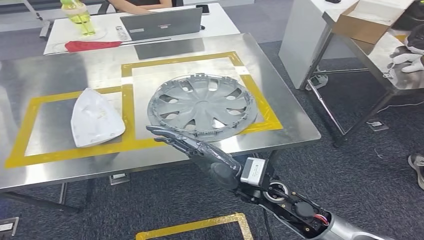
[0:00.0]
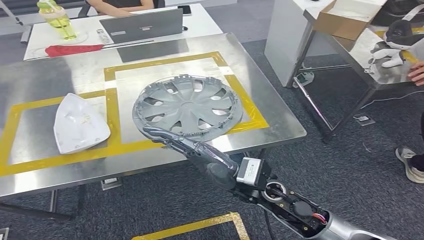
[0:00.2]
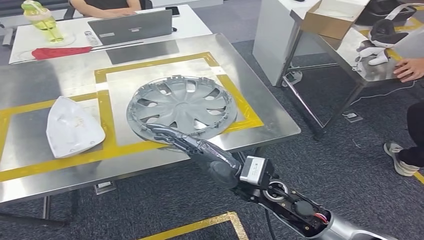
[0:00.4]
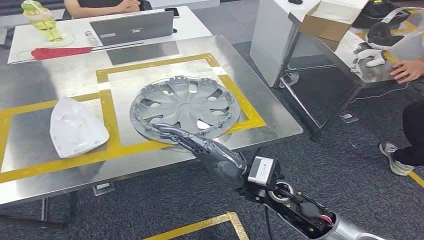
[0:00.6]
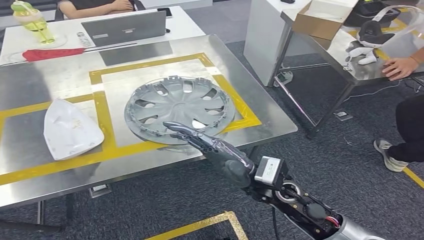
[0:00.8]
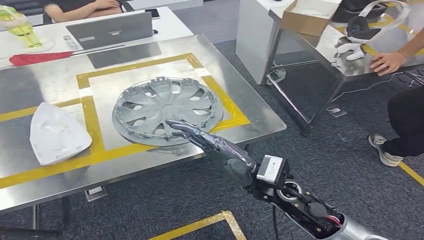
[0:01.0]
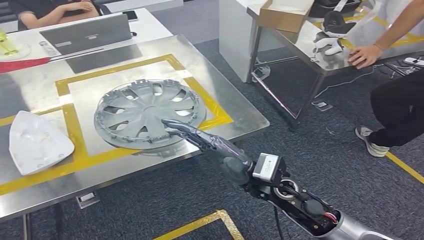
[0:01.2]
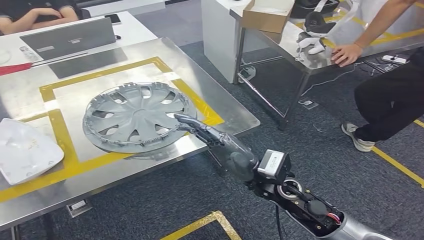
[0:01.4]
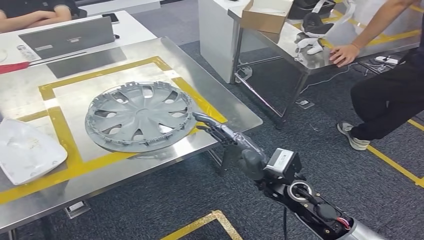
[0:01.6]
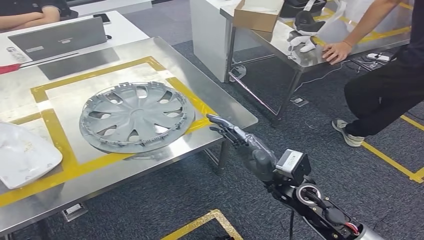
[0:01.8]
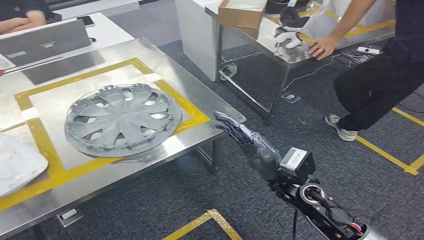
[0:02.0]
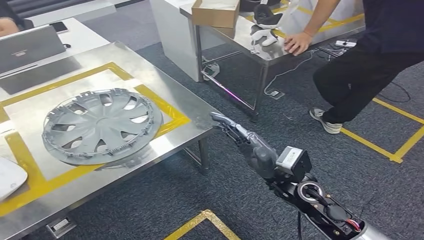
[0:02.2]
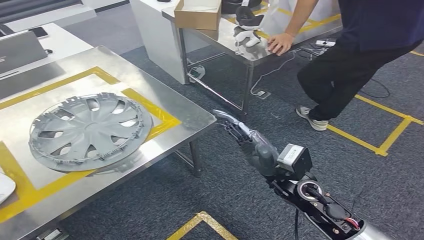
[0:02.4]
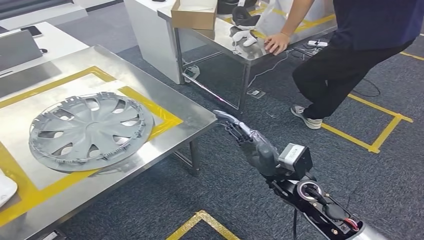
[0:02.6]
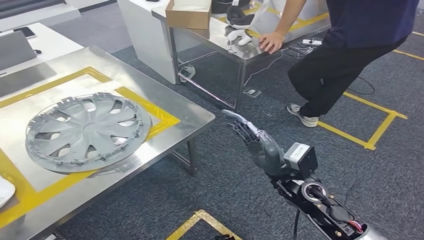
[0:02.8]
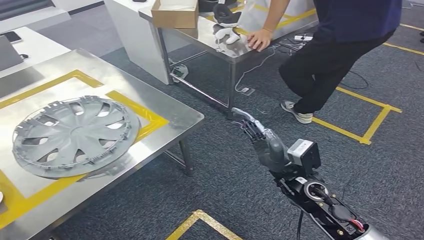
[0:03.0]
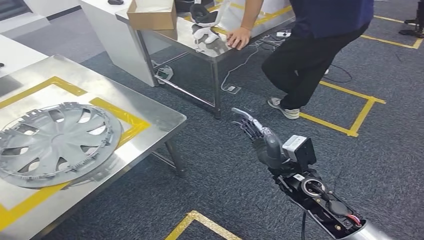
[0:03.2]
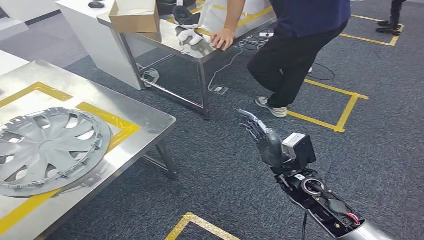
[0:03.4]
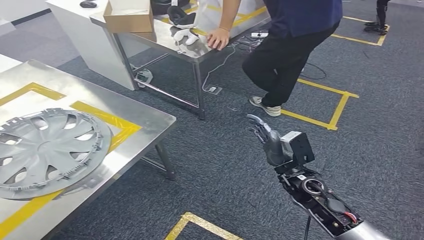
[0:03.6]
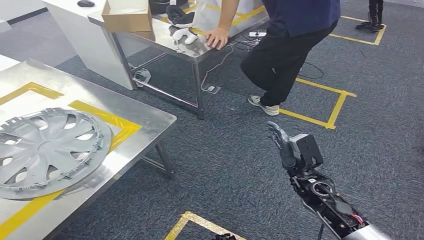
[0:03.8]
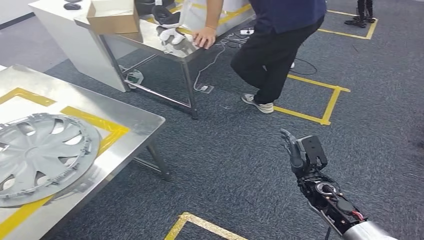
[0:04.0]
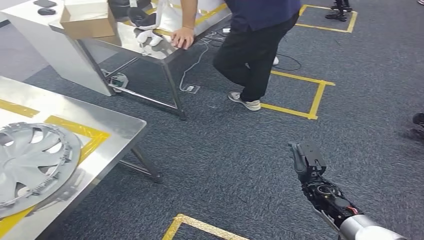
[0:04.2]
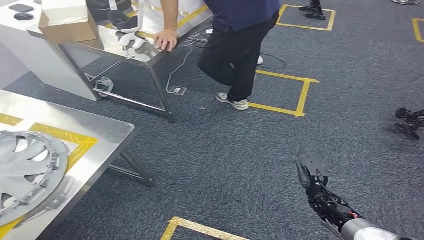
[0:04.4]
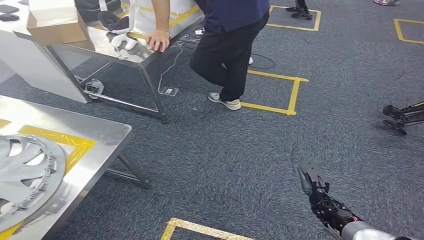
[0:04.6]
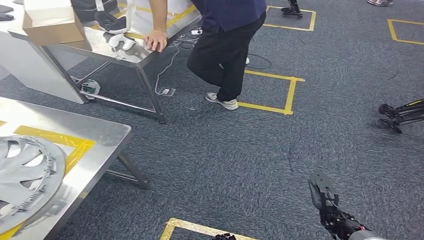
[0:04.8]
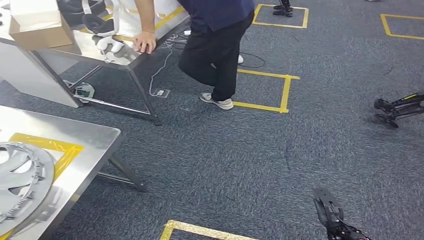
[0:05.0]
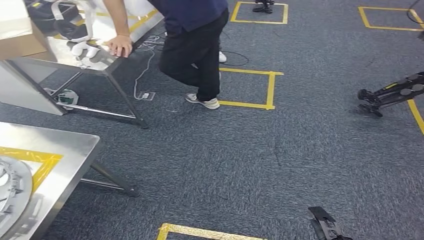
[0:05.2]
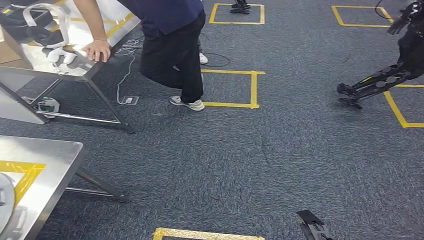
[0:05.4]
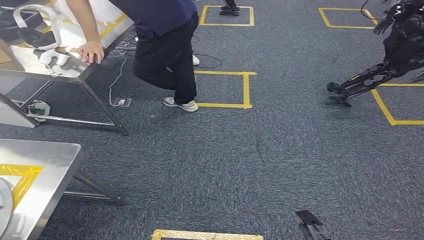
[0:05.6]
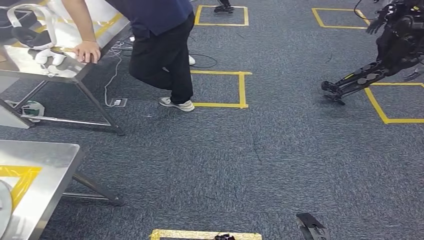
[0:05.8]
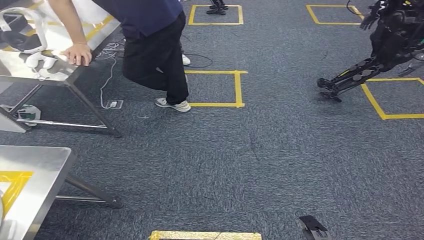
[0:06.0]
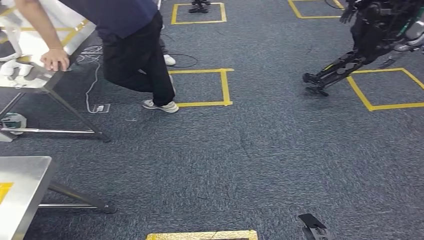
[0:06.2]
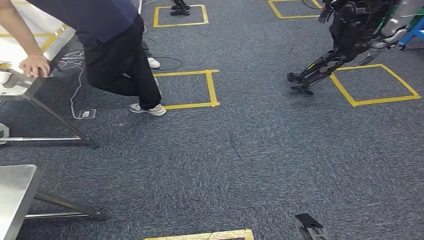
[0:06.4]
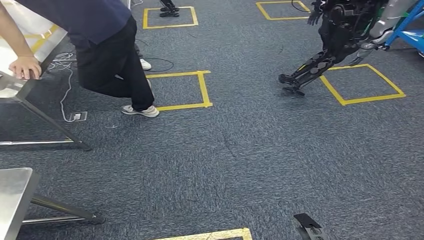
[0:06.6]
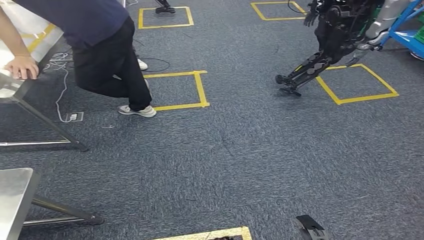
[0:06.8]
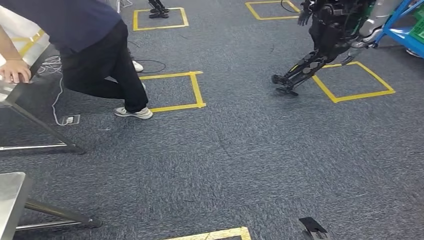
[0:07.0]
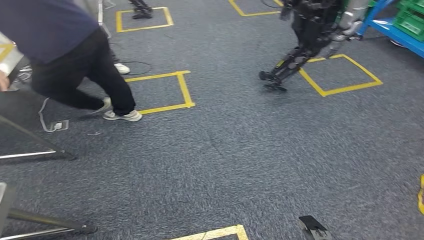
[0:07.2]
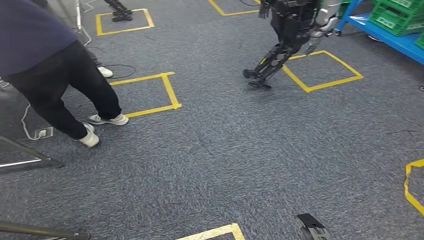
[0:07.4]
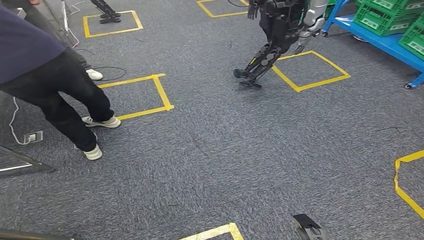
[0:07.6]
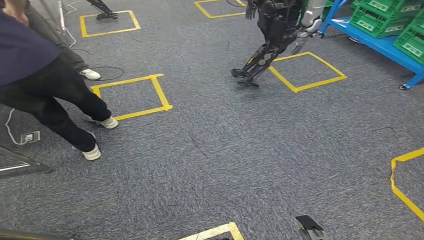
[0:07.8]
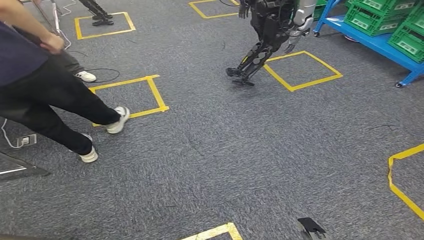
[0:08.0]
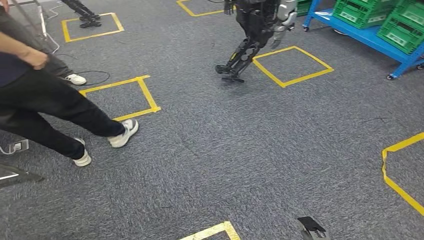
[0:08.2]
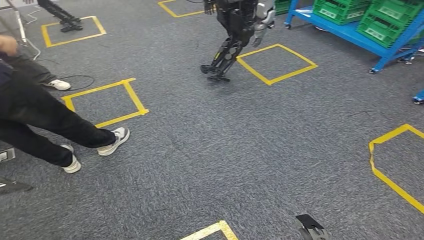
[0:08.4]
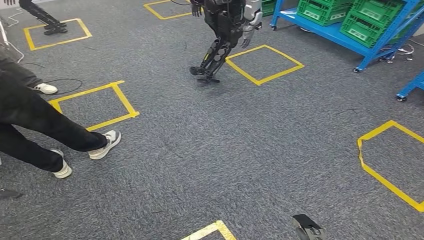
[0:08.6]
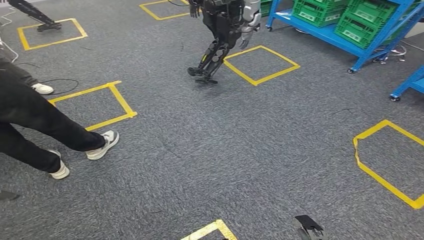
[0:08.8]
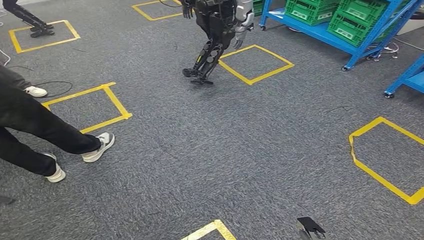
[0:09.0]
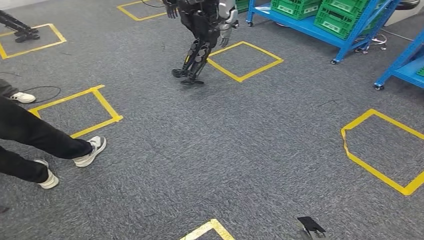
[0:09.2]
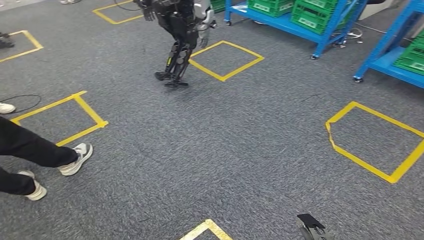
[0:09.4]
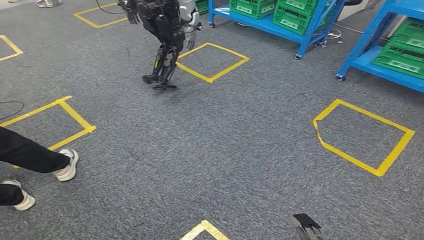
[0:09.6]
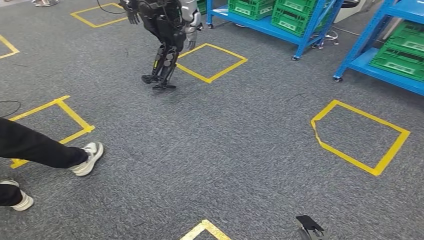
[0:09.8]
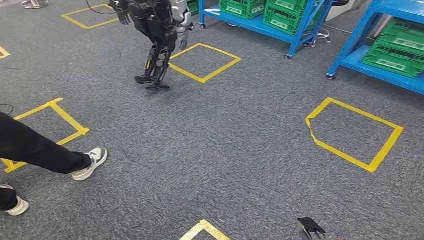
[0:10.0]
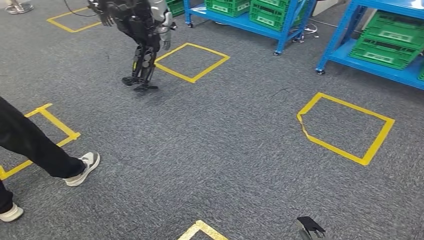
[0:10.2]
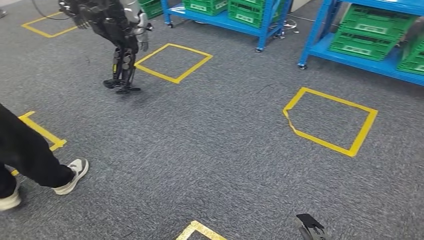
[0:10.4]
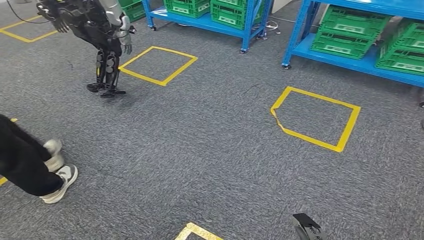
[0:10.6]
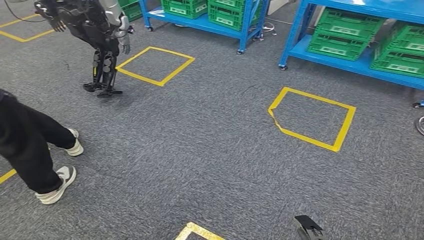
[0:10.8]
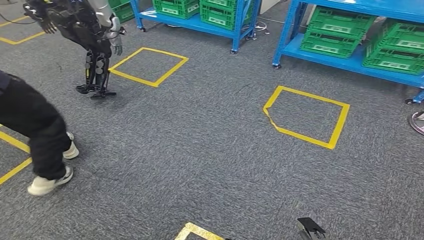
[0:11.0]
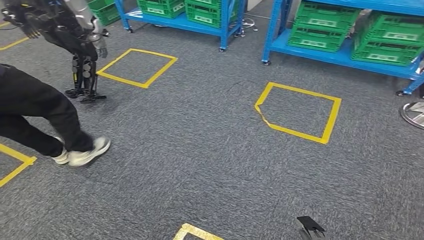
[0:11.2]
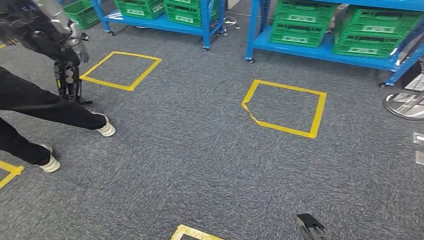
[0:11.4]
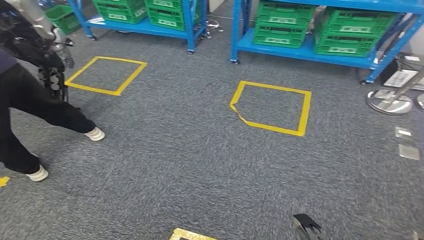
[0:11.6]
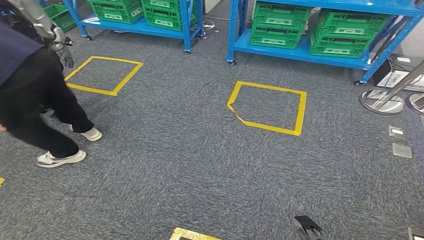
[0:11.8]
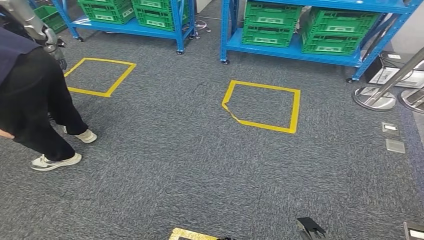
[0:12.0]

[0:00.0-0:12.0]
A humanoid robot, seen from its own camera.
Step, 0:00.0 to 0:05.8: Insert the small component into the corresponding slot on the workbench.

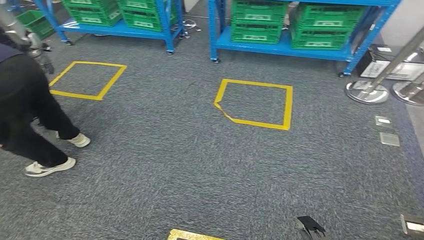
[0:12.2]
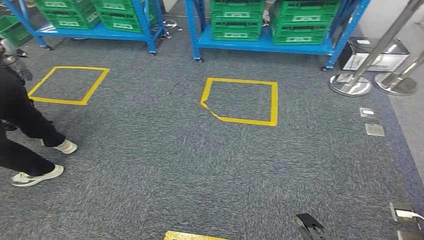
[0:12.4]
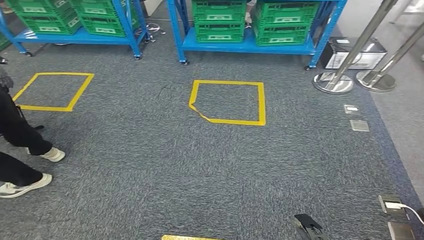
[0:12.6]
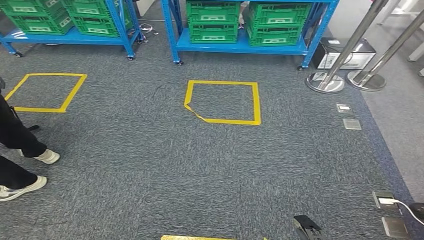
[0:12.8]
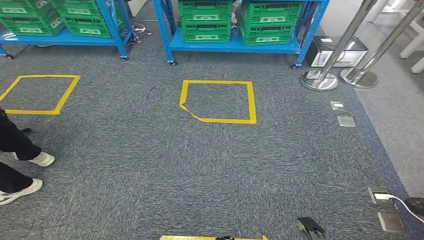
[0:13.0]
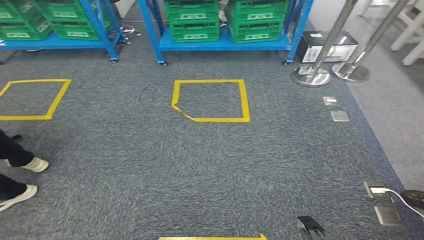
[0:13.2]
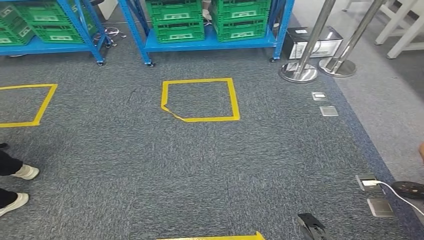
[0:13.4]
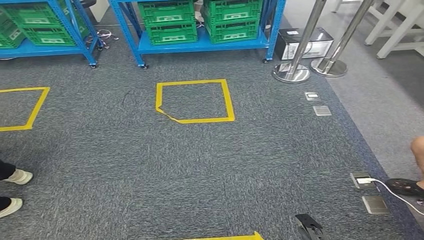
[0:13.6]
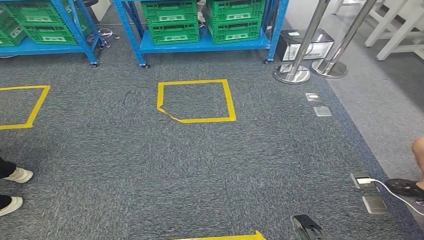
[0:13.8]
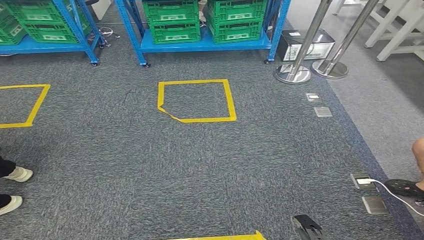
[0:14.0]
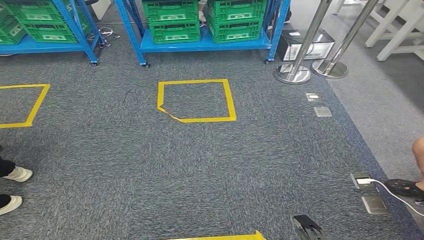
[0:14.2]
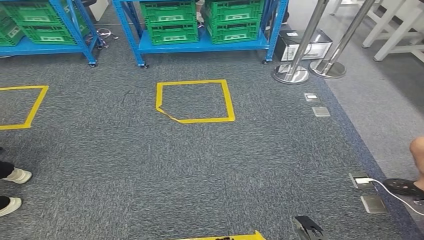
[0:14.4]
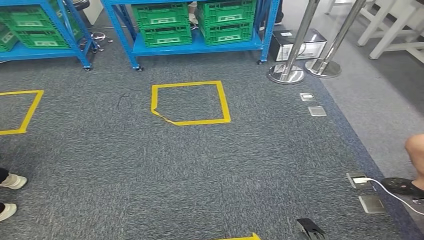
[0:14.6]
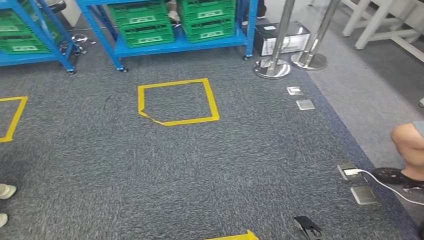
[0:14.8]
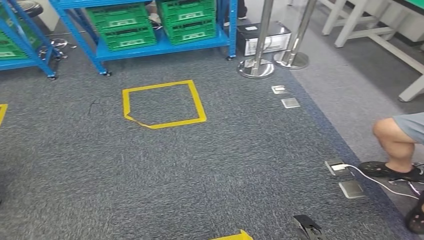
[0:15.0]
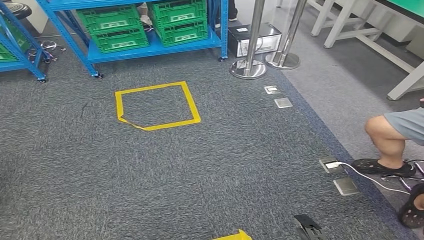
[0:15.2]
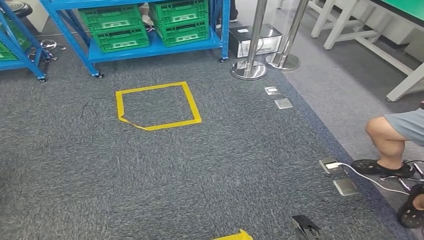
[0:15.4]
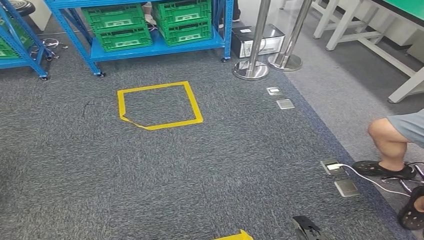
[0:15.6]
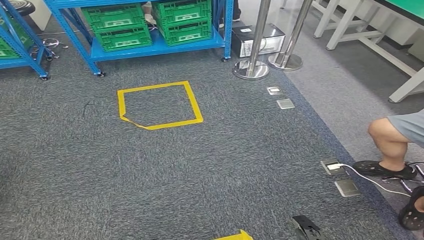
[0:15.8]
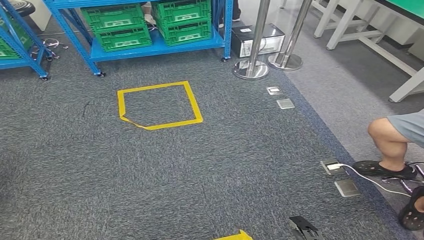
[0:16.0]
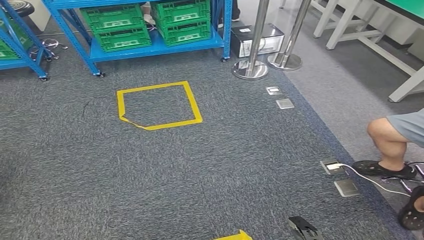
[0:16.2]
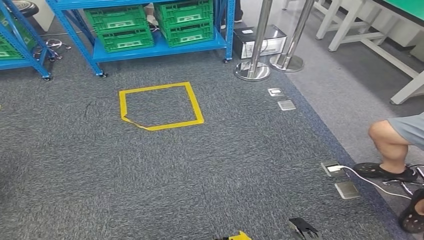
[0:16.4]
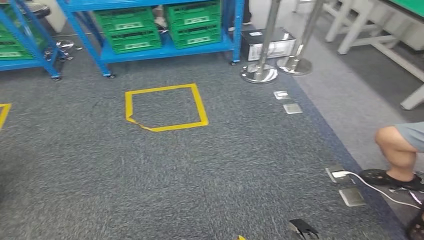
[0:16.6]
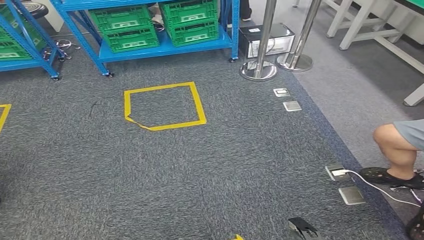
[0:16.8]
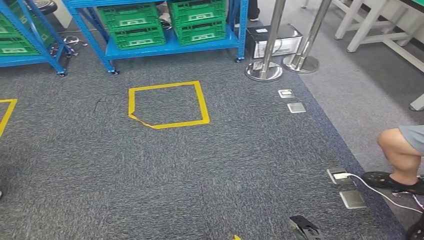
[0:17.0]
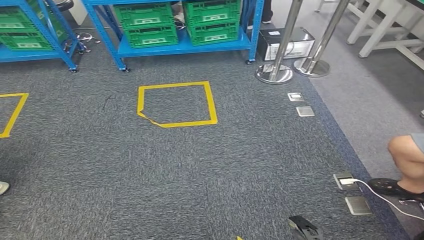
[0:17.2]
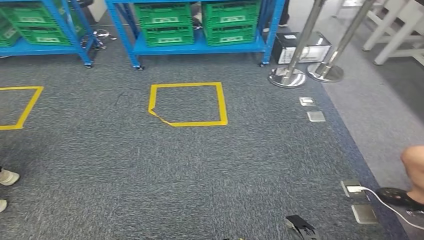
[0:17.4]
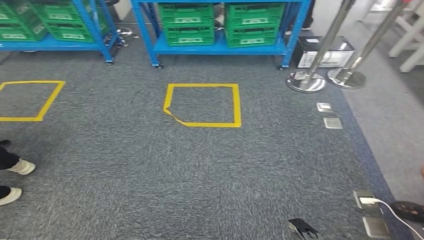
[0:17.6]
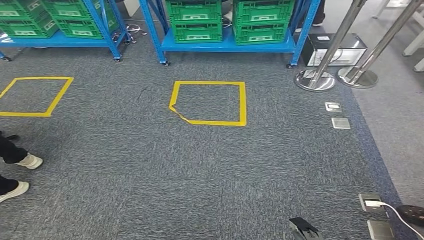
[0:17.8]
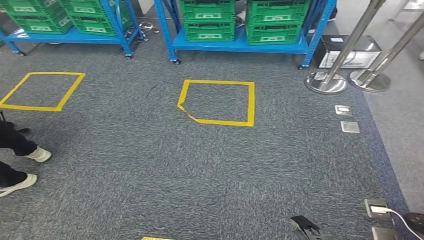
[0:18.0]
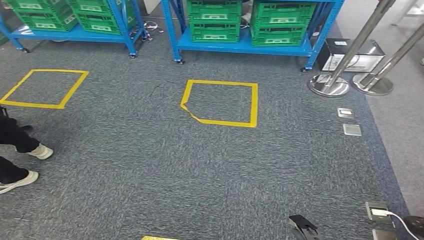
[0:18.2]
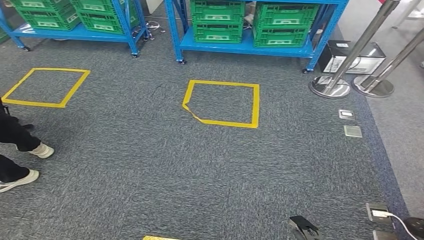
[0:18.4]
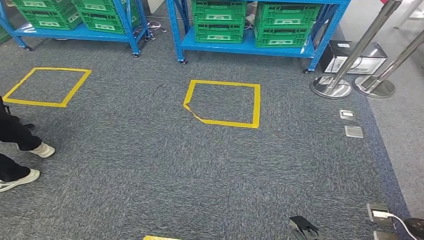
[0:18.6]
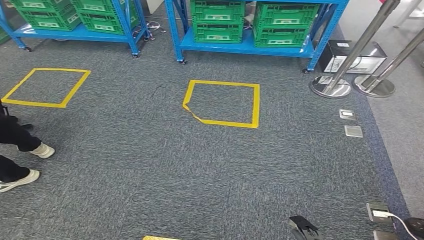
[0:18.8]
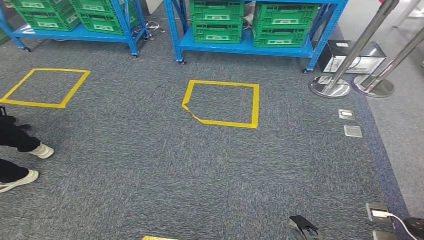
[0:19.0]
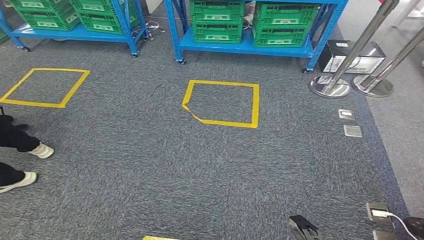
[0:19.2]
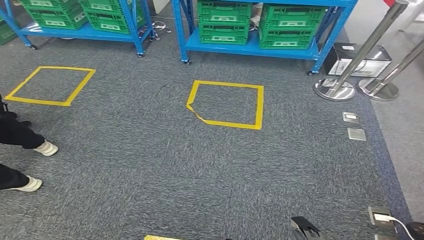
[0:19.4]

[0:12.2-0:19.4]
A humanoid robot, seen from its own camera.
0:15.0 to 0:16.6: The hands make only small movements.
